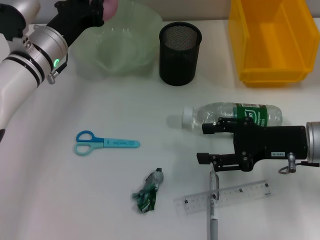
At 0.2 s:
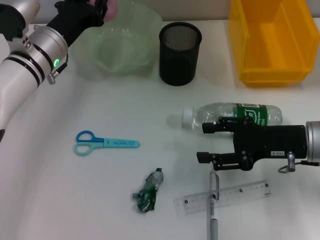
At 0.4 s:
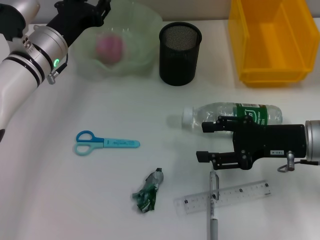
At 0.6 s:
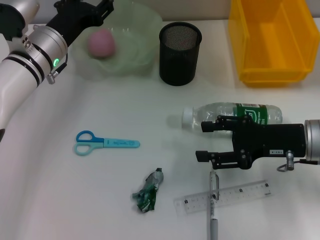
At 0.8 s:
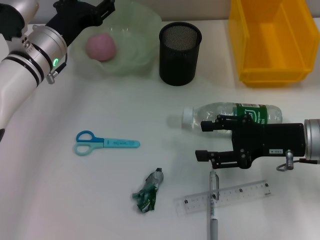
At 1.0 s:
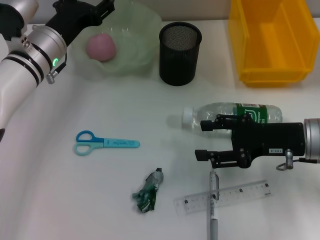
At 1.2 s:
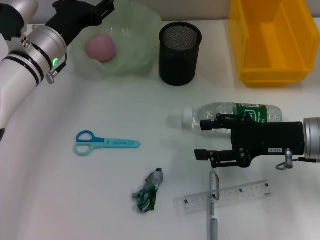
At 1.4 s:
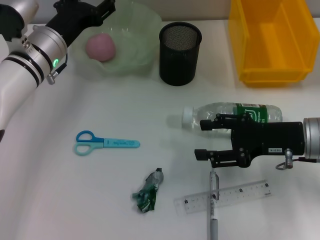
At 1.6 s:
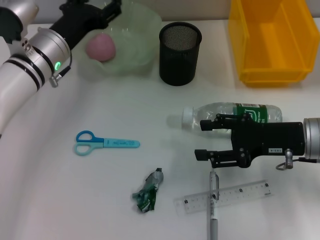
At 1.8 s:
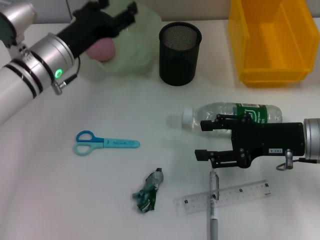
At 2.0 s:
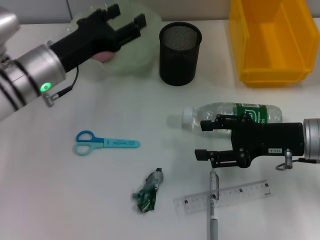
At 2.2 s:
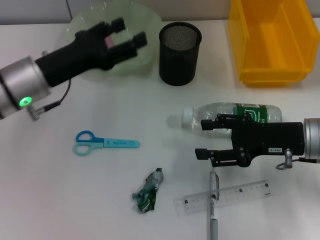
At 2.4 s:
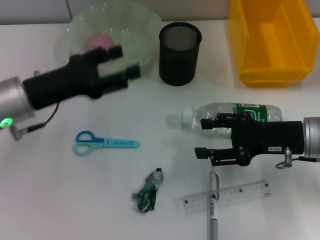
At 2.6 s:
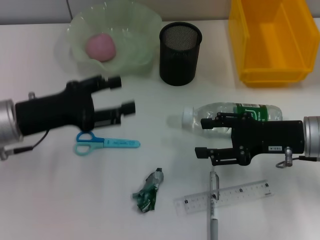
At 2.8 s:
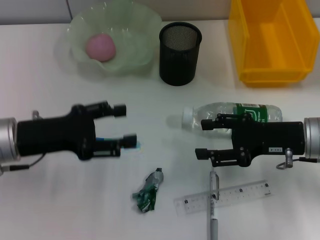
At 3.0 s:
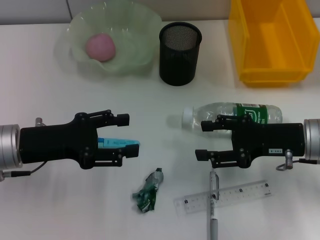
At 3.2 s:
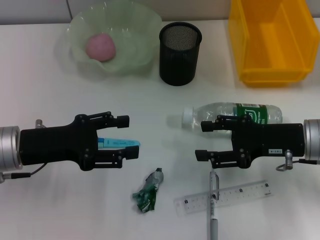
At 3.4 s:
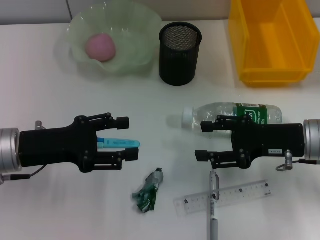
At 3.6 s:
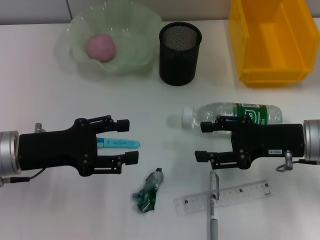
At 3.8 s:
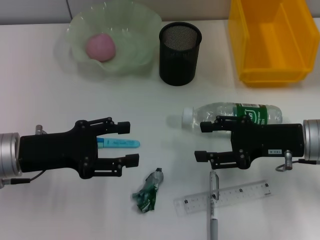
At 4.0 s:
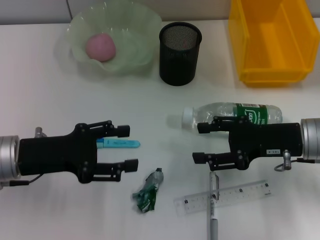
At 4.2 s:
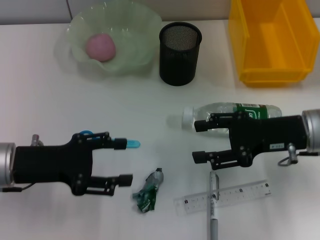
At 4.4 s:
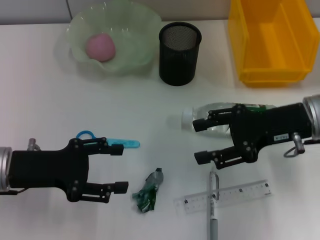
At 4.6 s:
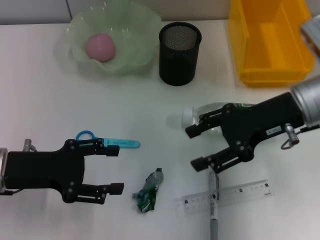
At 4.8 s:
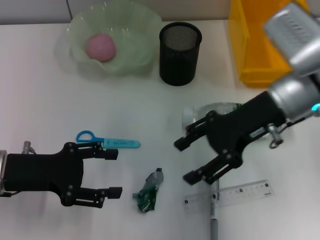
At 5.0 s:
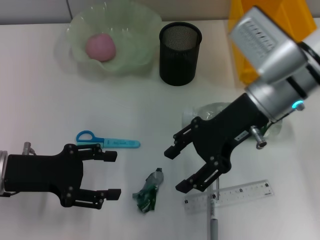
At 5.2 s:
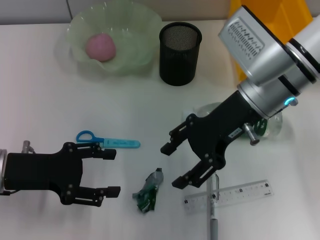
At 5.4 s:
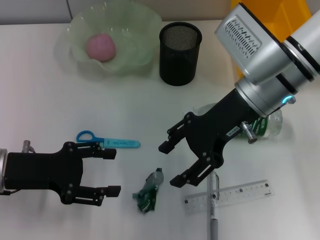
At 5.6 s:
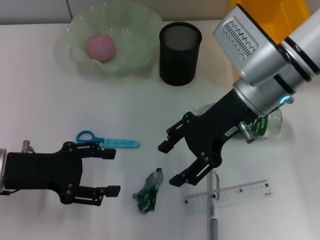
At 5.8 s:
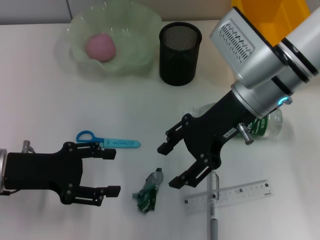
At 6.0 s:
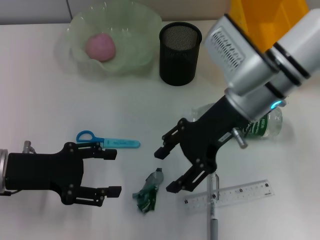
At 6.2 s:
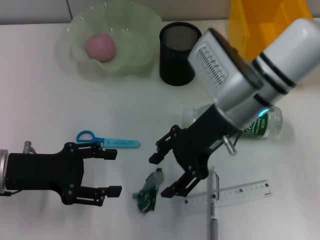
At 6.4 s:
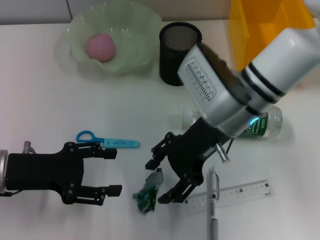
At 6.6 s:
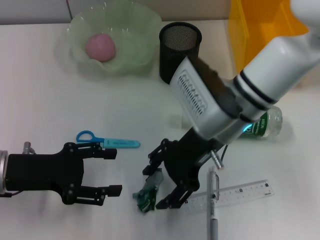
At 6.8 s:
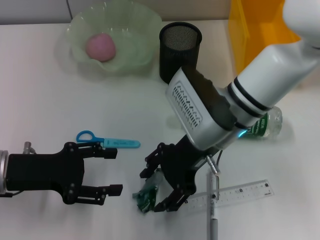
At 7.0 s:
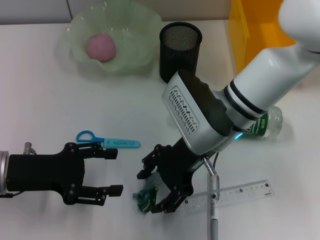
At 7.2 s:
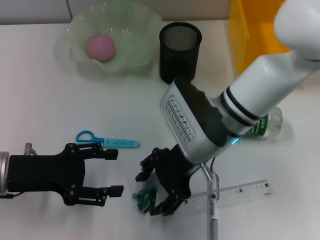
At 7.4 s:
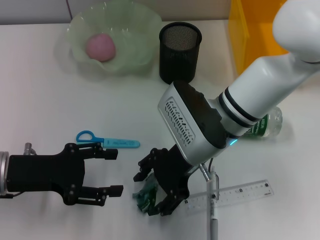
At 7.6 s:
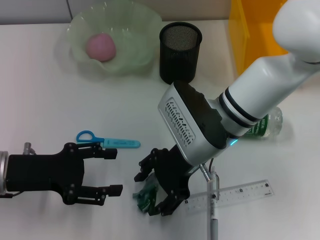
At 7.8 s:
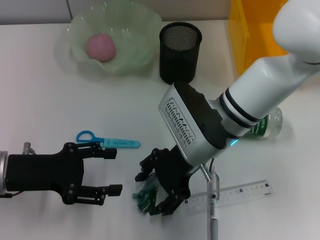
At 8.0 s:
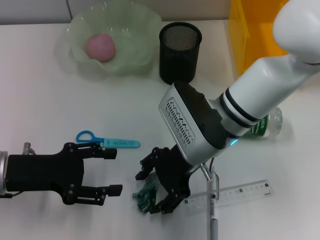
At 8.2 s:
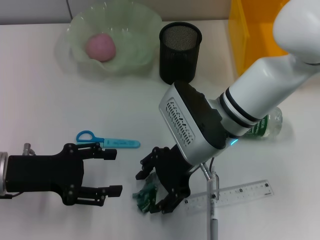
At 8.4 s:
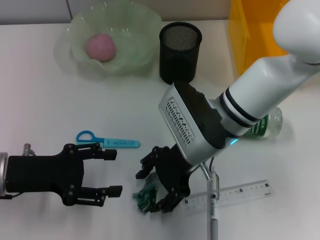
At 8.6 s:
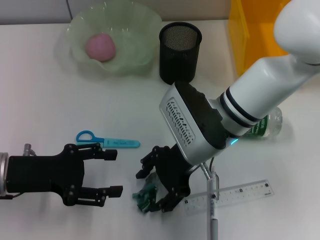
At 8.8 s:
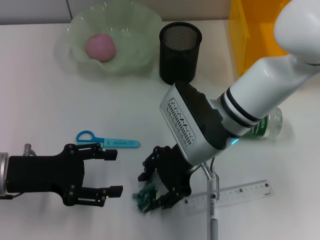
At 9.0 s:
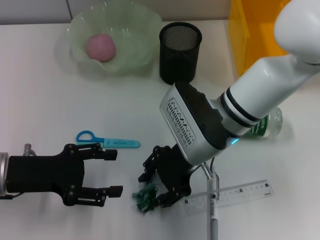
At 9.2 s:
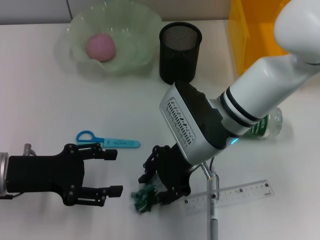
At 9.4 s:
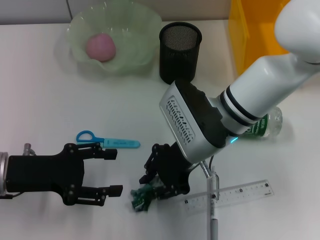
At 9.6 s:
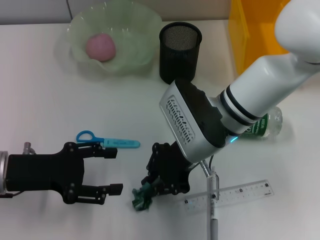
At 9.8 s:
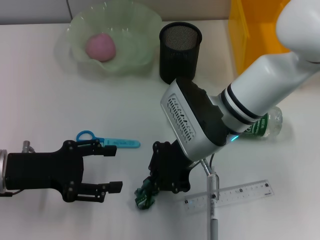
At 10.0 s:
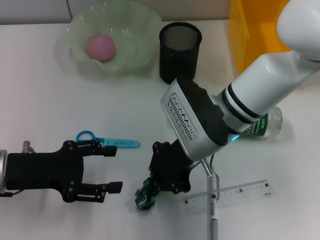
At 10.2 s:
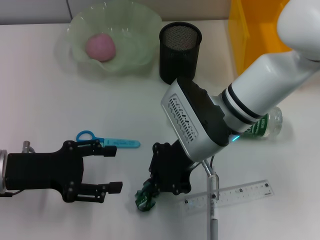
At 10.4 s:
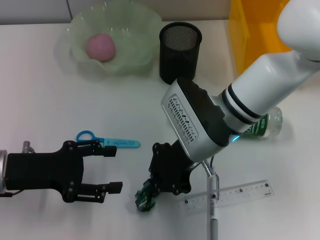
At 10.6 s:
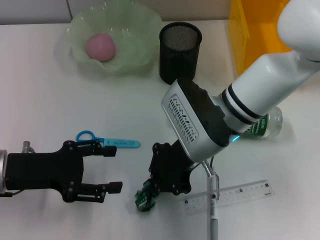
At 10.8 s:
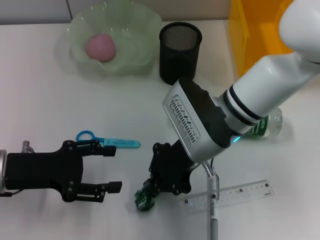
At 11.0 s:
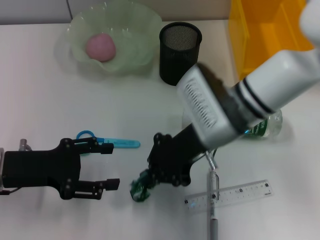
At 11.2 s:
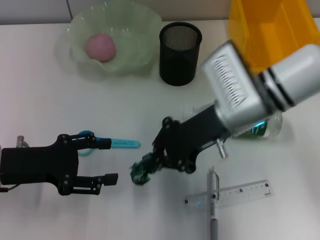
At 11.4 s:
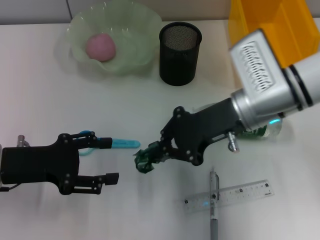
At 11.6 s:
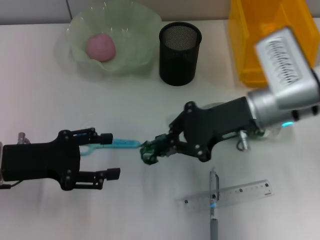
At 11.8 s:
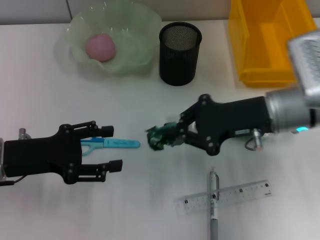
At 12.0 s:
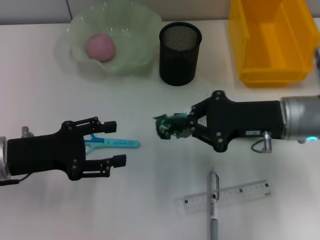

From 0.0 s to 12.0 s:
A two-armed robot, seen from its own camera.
Step, from 0.8 s to 10.6 s: Grab the plastic with the right hand.
From 0.0 s to 1.6 s: The left gripper opens.
From 1.6 s to 3.0 s: The left gripper moves backward and to the left, roughly 15 cm.
From 3.0 s to 4.4 s: The right gripper changes place by about 5 cm.
From 4.4 s to 6.0 s: The right gripper is displaced to the left by some 10 cm.
From 6.0 s to 7.6 s: The right gripper ends up some 5 cm from where it was.
From 7.6 s to 9.0 s: Both grippers stay put.
From 9.0 s to 10.4 s: The right gripper closes.
From 10.4 s to 12.0 s: The right gripper is displaced to the right by roughly 15 cm.

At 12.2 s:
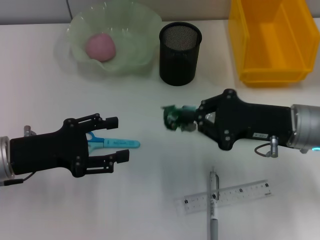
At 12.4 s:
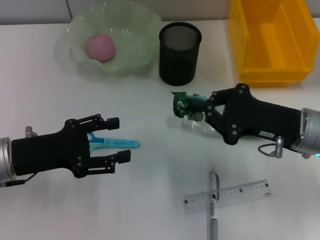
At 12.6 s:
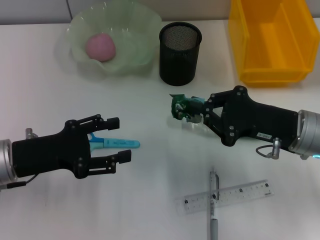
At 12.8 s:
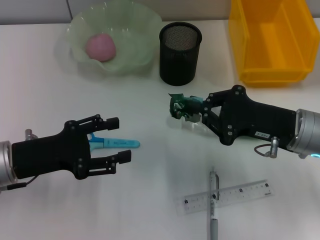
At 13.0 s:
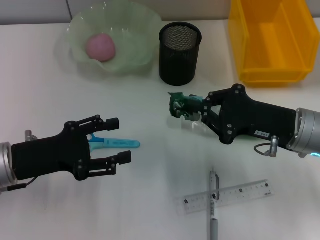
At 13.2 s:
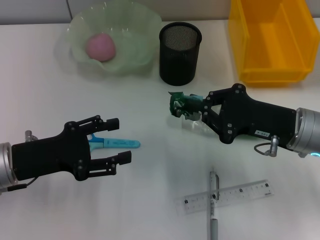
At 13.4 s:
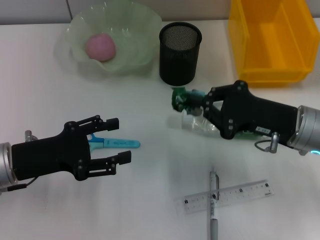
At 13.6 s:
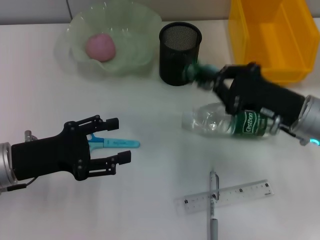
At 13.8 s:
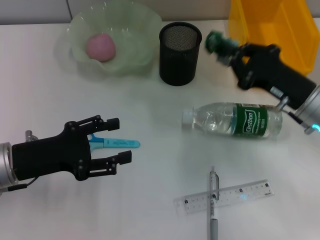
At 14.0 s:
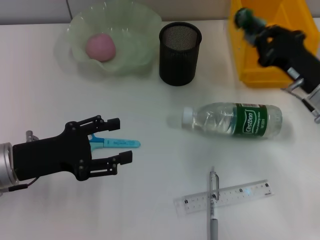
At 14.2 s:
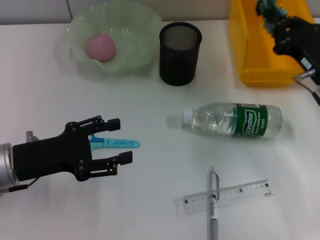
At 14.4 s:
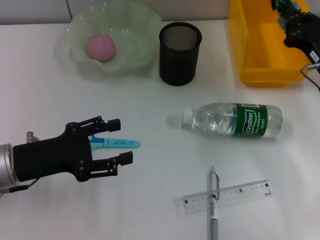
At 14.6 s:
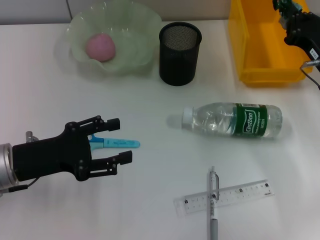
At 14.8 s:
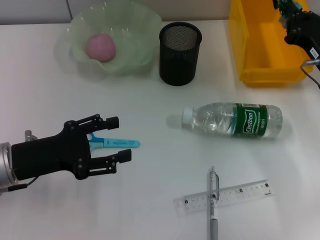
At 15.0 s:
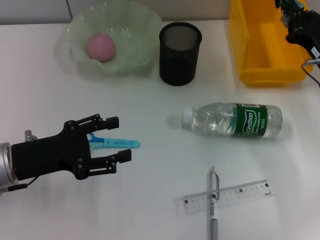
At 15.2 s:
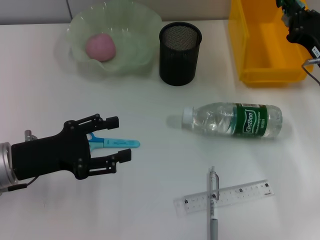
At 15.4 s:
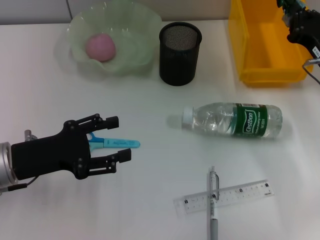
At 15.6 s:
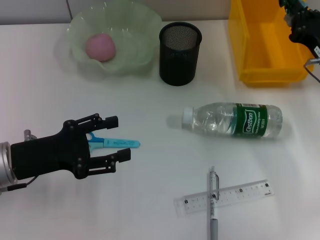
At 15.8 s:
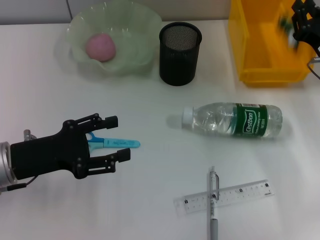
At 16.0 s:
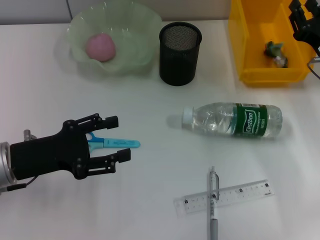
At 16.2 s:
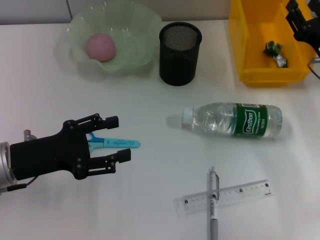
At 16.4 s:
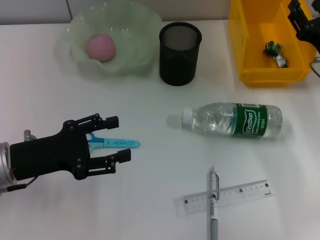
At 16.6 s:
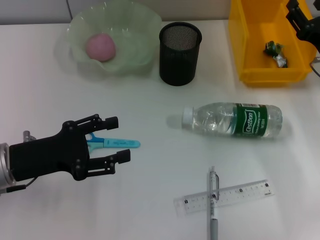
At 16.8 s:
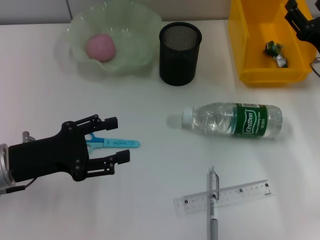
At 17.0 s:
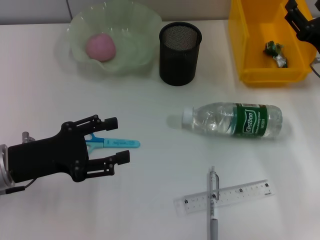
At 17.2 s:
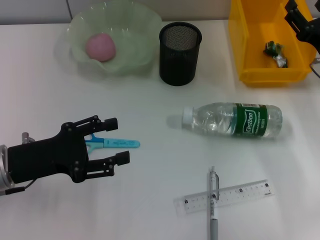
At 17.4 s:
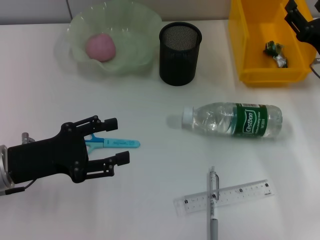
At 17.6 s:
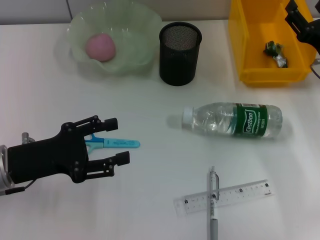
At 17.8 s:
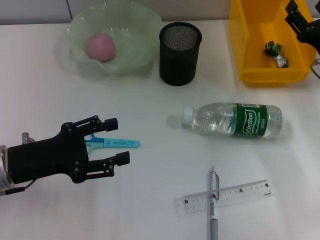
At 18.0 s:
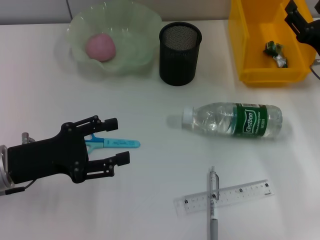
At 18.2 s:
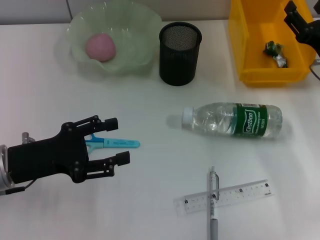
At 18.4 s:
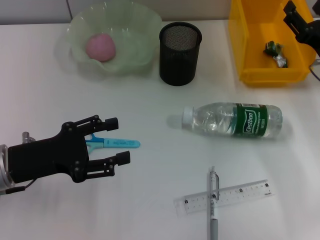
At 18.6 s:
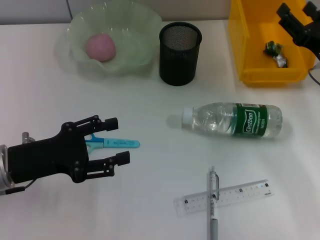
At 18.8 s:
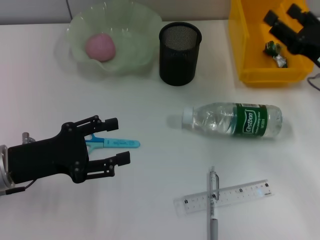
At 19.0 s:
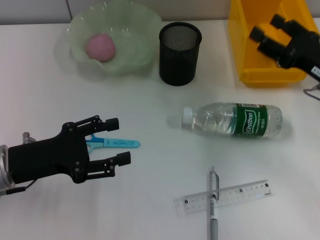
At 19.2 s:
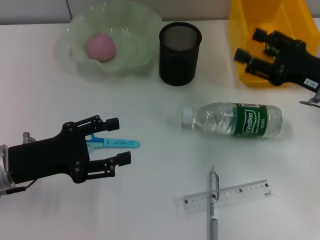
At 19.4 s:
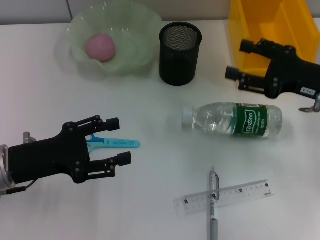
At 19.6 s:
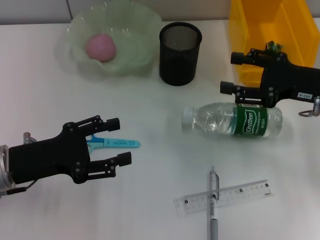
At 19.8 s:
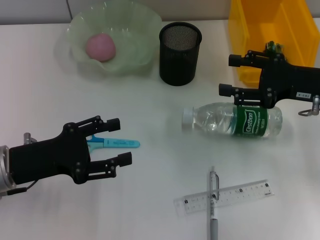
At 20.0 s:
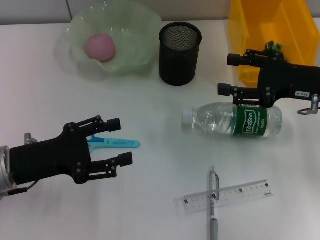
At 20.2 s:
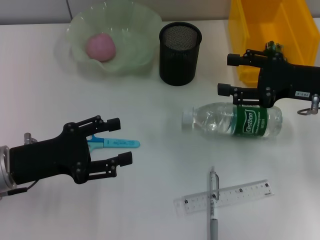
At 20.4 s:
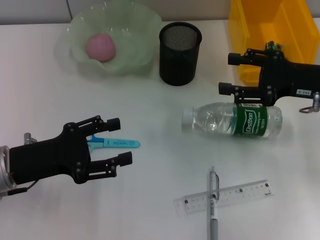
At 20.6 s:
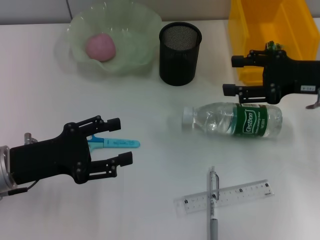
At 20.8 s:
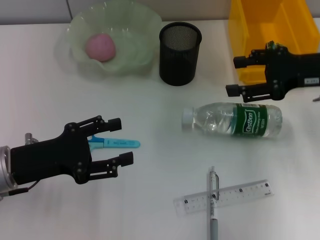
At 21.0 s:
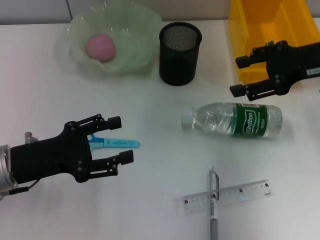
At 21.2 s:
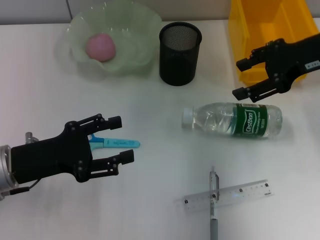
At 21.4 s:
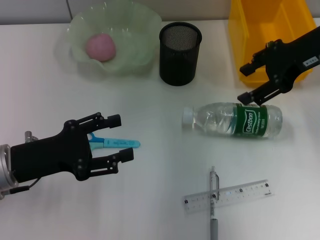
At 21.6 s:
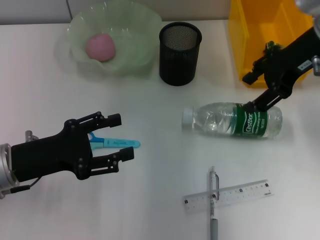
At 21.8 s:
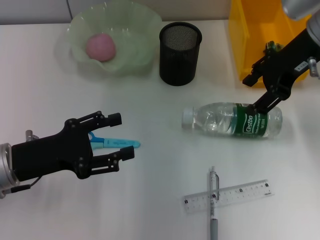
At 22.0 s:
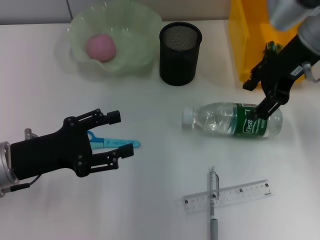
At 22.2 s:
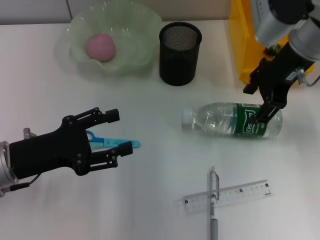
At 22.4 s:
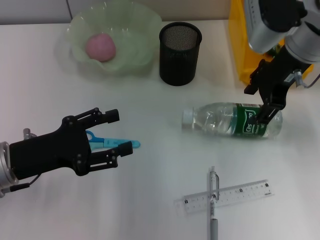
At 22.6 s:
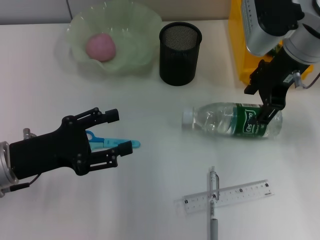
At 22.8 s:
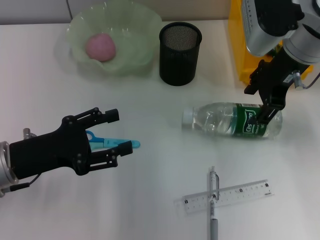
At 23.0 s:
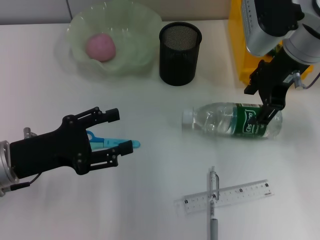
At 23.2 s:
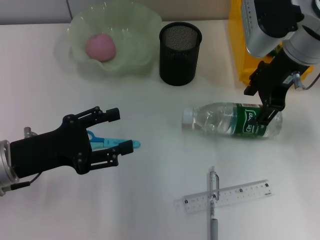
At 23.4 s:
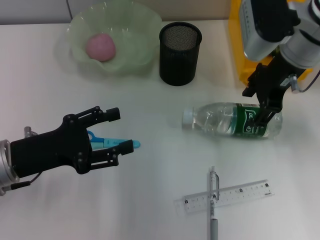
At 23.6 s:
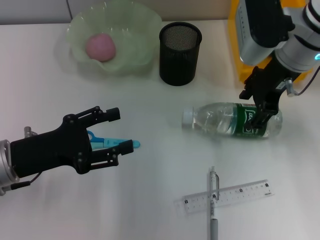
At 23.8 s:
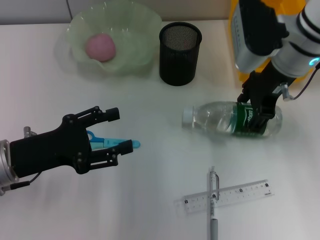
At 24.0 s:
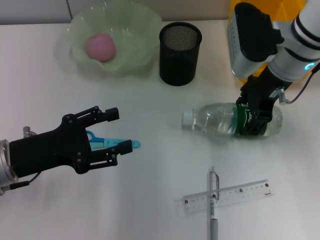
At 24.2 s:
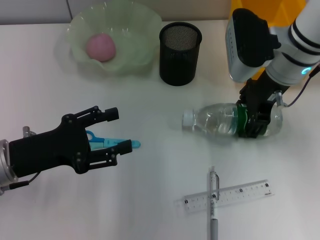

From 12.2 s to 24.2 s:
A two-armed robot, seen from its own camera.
Step, from 12.2 s to 16.8 s: Place the plastic into the trash can with the right hand.
From 13.8 s to 15.2 s: The right gripper moves about 5 cm.
From 15.2 s to 16.6 s: The right gripper opens its fingers.
From 16.6 s to 18.2 s: The two grippers keep their place.
From 18.2 s to 19.8 s: The right gripper travels upward by roughly 5 cm.
From 19.8 s to 21.2 s: The right gripper travels upward by about 10 cm.
From 21.2 s to 22.6 s: The right gripper travels to the left by roughly 10 cm.
From 22.6 s to 24.2 s: There are only small adjustments of the grippers.
